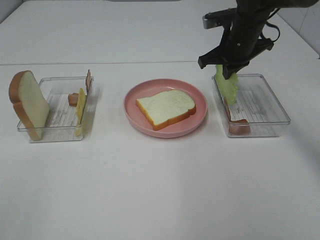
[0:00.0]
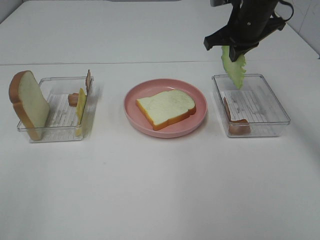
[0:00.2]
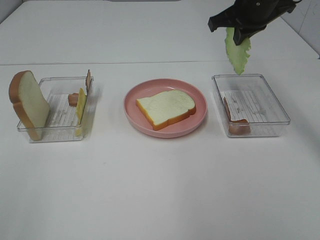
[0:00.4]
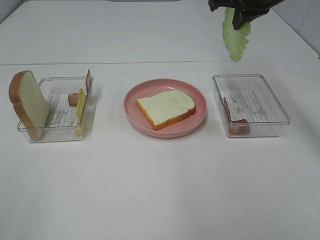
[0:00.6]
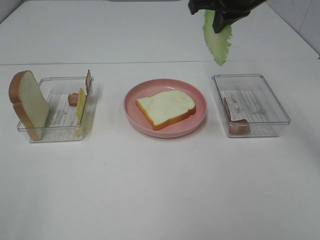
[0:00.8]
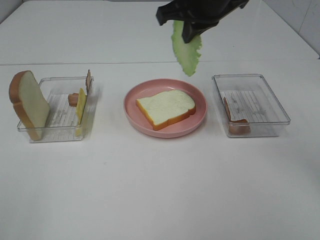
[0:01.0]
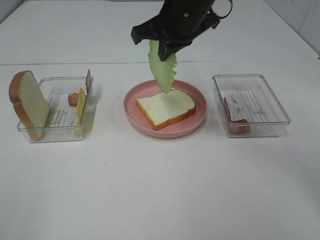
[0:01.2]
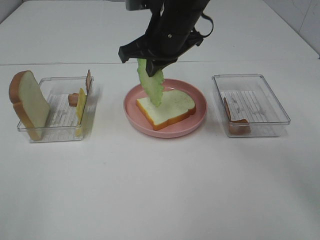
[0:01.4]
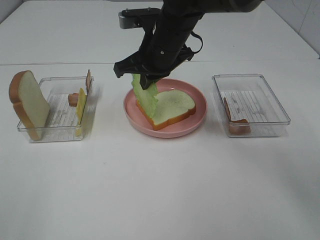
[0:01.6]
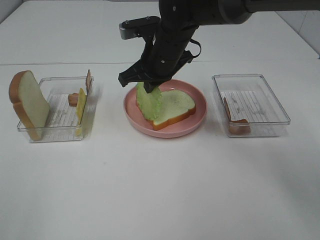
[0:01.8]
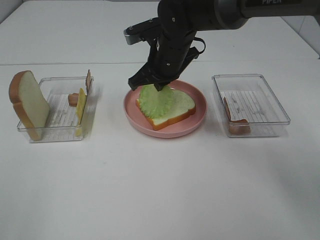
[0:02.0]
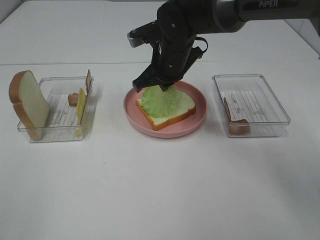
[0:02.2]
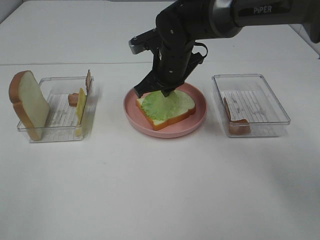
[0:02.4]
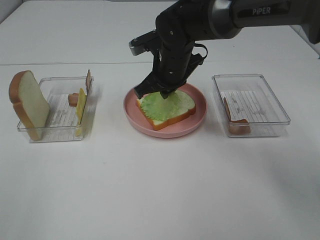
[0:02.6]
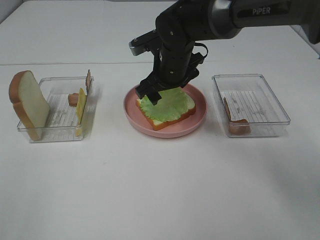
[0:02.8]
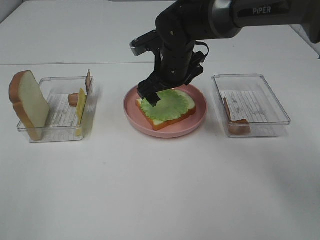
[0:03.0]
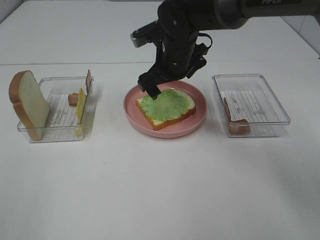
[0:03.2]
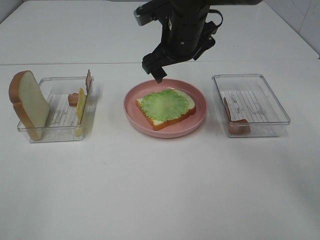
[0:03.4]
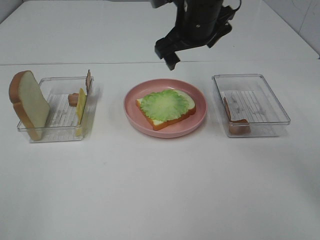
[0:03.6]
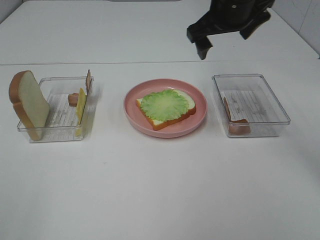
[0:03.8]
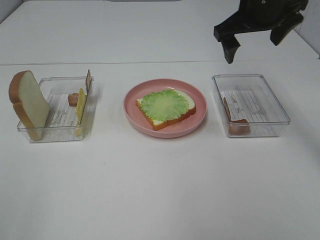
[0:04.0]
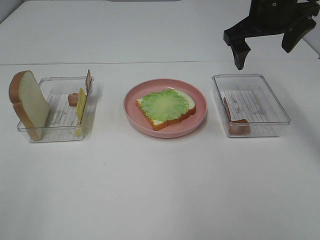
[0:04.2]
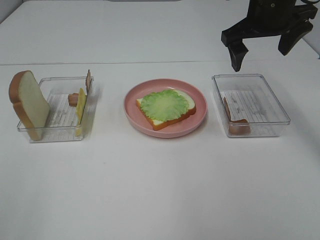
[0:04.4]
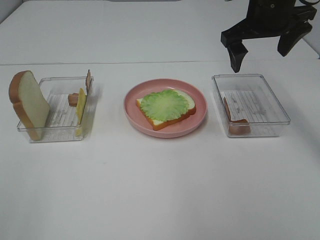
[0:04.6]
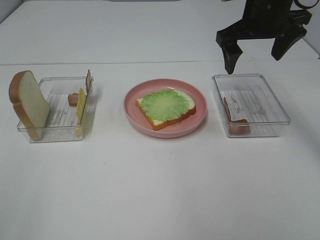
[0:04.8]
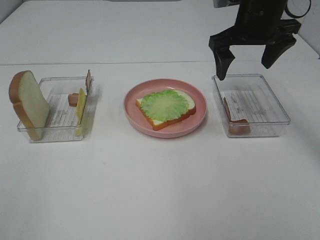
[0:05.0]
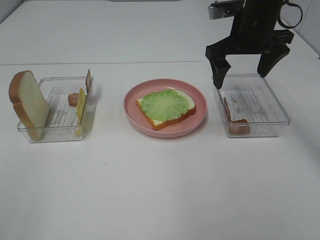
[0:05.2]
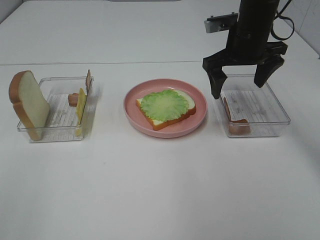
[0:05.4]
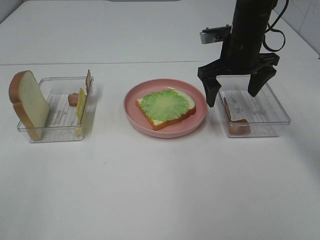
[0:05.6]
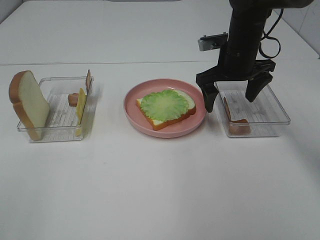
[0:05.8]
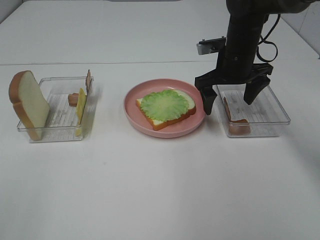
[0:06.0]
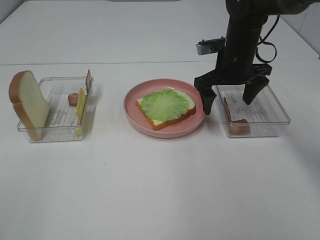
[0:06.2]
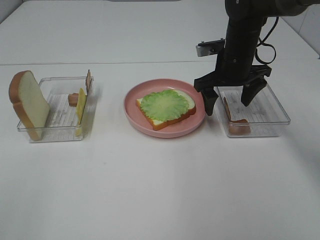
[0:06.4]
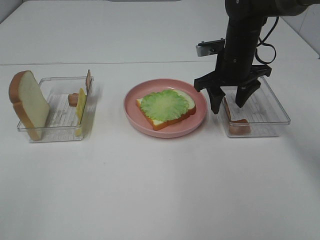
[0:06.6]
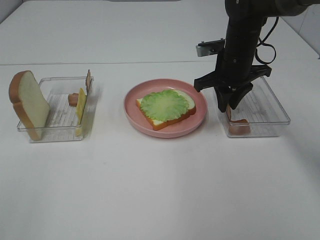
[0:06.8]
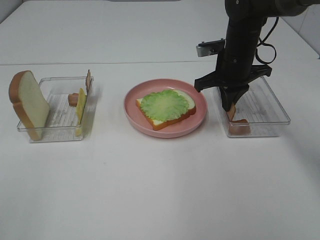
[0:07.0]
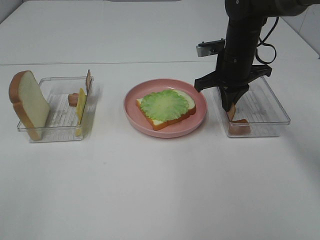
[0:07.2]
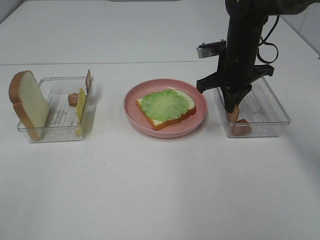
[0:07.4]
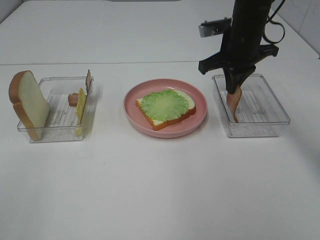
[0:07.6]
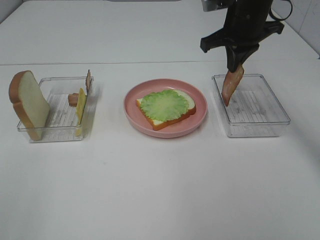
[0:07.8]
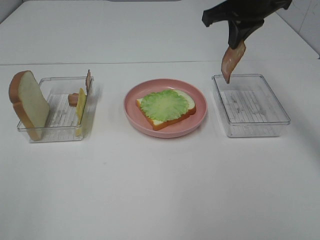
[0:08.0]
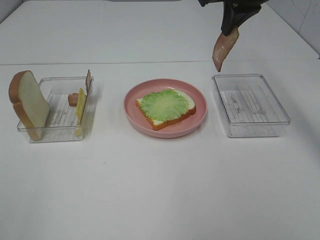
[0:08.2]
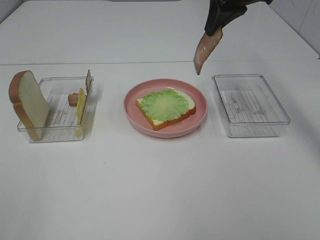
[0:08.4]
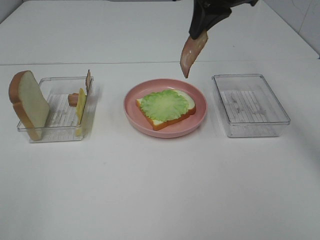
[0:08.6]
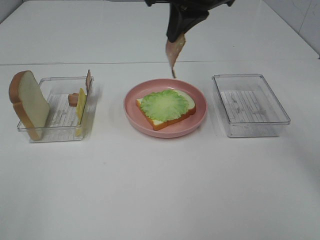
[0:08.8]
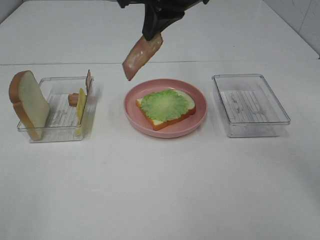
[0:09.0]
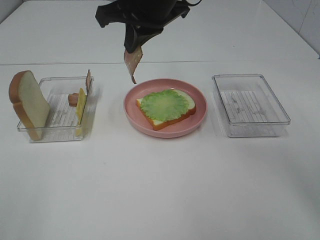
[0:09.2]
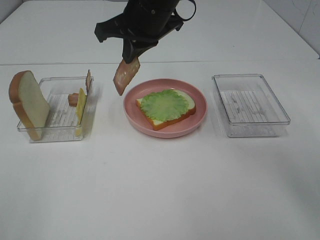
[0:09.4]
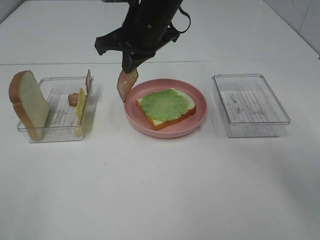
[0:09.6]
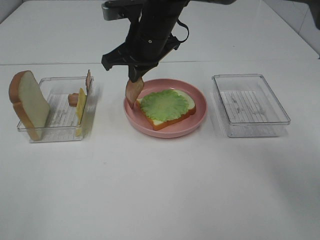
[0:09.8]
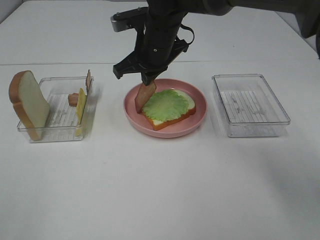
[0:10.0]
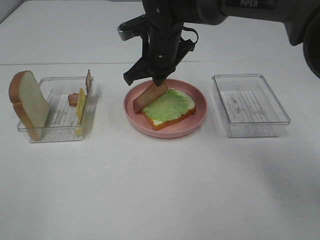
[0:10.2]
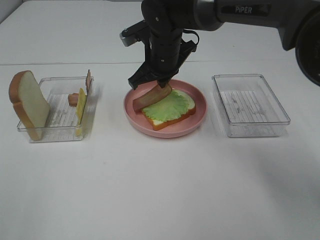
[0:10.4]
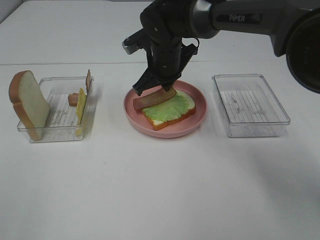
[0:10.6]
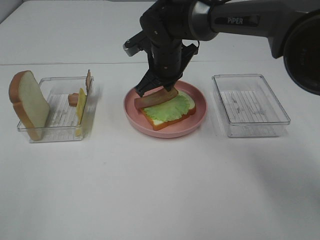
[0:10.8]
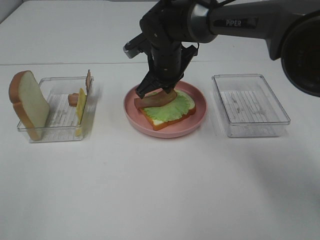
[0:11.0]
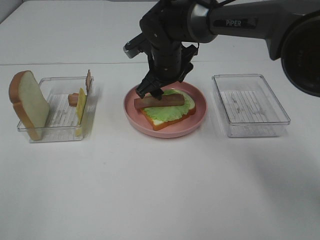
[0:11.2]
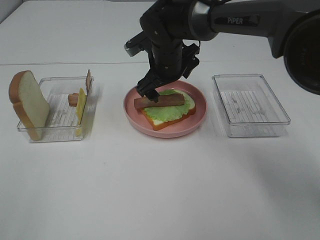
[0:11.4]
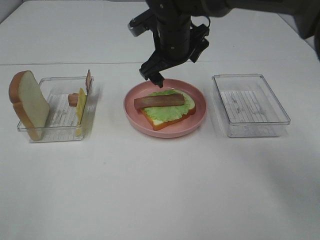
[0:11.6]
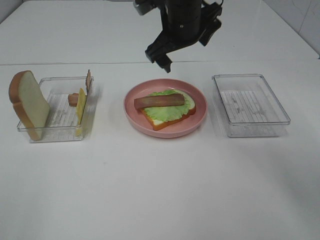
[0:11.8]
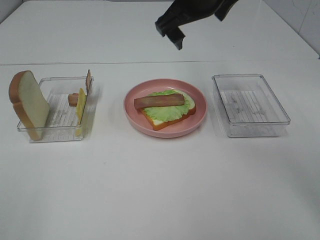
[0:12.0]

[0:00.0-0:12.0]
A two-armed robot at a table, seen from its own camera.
Task of the whole recording: Make sandwiches.
Step, 0:00.2 to 0:03.2: Right hand:place the lettuce slice on the bread slice.
Step, 0:03.4 to 0:07.2: Right hand:grab the bacon.
Step, 0:07.4 to 0:11.6: Right hand:place bacon on lettuce slice.
0:00.0 to 0:01.6: The right gripper goes approximately 15 cm to the left and backward.
0:01.6 to 0:03.0: The right gripper shifts by some 5 cm, and opens.
0:03.0 to 0:04.4: The right gripper goes approximately 20 cm to the right and upward.
0:04.4 to 0:06.0: The right gripper goes roughly 10 cm downward.
0:06.0 to 0:07.6: The right gripper closes its fingers.
0:07.6 to 0:09.0: The right gripper moves to the left, upward and backward, about 20 cm.
0:09.0 to 0:10.4: The right gripper heads downward, covering approximately 15 cm.
0:10.4 to 0:12.0: The right gripper shifts about 15 cm upward, and opens.

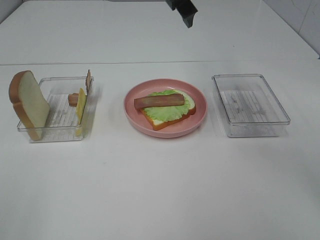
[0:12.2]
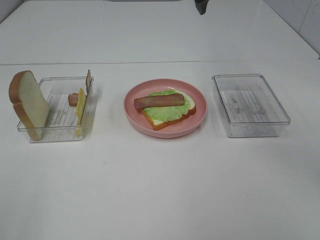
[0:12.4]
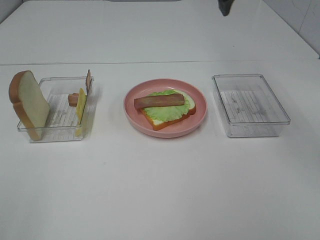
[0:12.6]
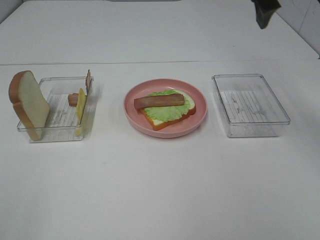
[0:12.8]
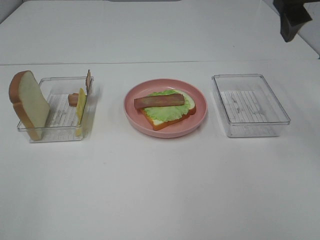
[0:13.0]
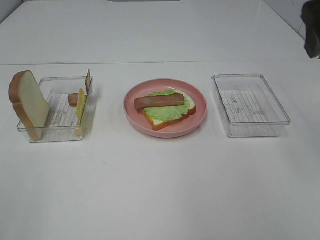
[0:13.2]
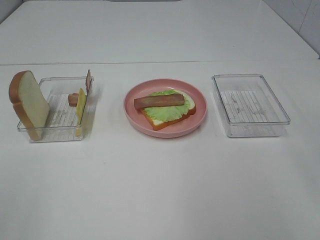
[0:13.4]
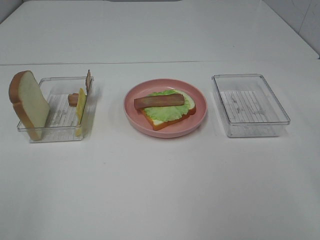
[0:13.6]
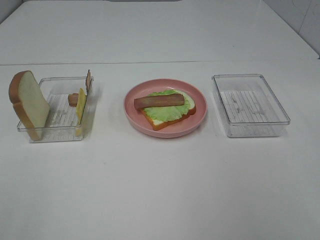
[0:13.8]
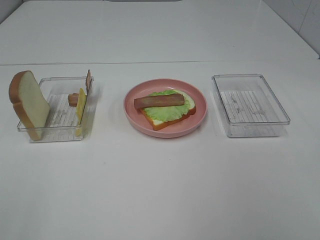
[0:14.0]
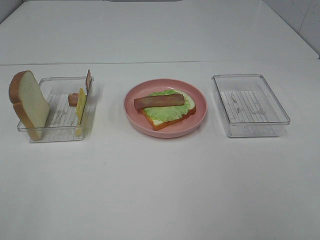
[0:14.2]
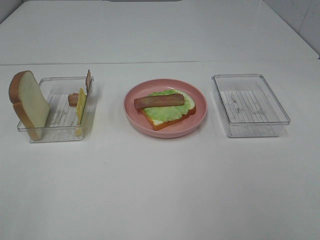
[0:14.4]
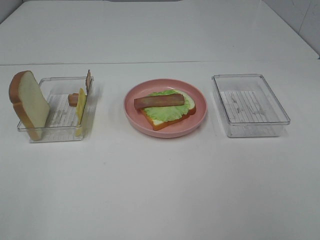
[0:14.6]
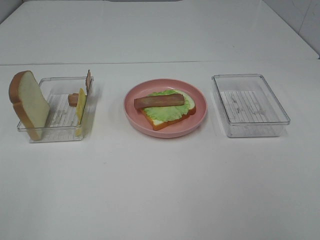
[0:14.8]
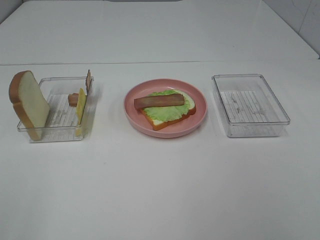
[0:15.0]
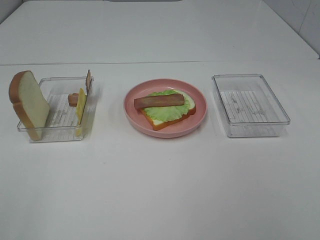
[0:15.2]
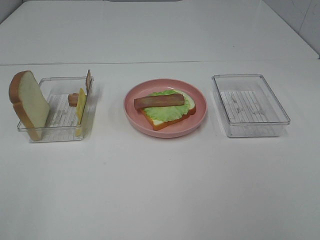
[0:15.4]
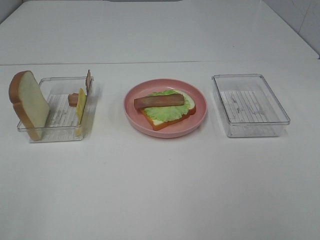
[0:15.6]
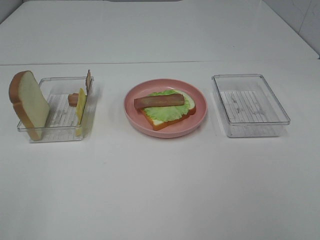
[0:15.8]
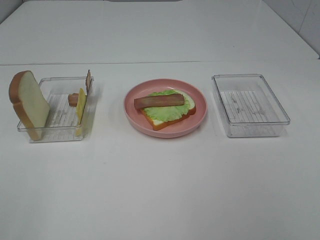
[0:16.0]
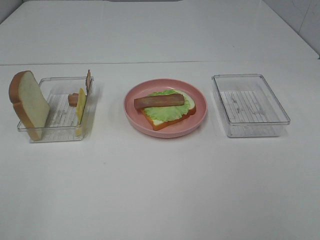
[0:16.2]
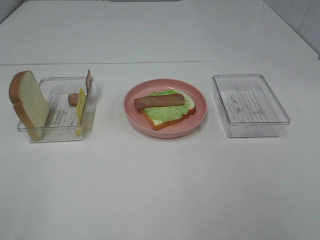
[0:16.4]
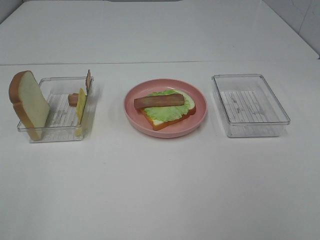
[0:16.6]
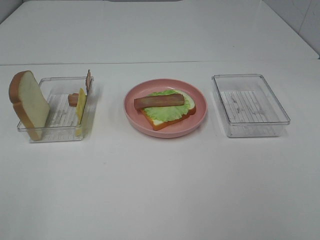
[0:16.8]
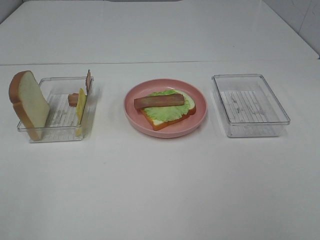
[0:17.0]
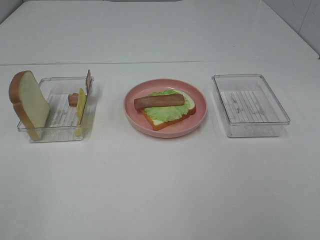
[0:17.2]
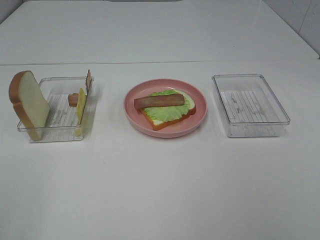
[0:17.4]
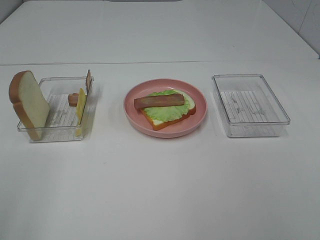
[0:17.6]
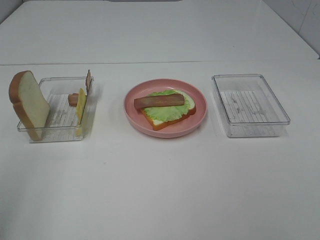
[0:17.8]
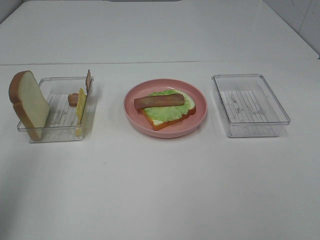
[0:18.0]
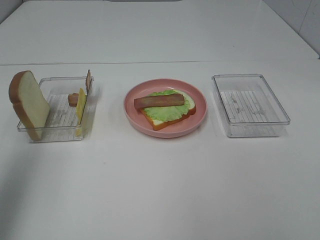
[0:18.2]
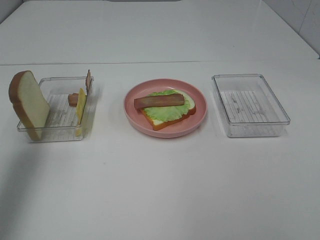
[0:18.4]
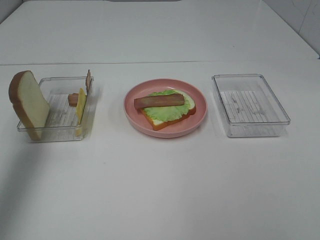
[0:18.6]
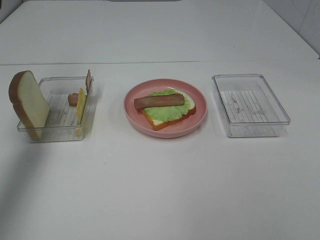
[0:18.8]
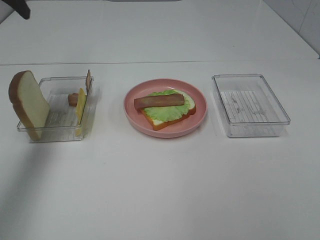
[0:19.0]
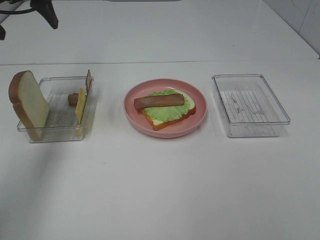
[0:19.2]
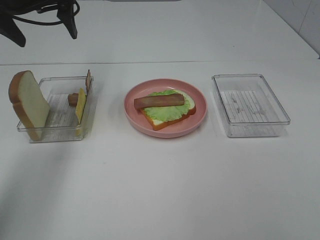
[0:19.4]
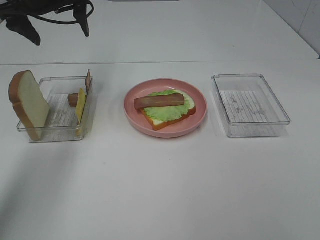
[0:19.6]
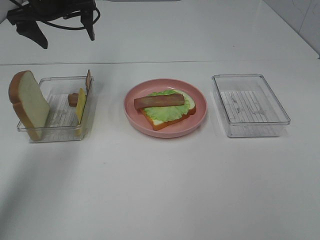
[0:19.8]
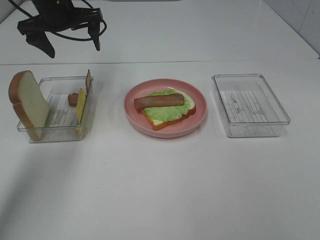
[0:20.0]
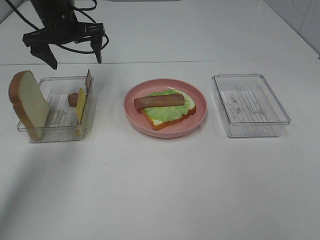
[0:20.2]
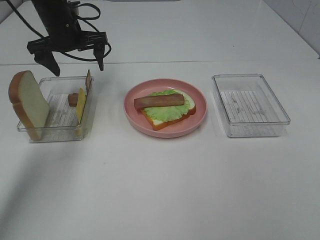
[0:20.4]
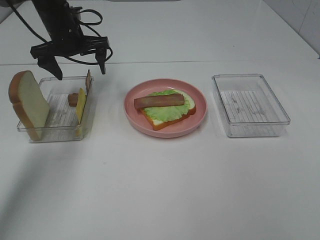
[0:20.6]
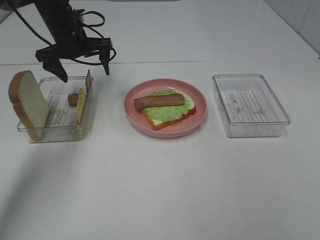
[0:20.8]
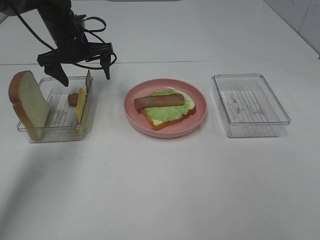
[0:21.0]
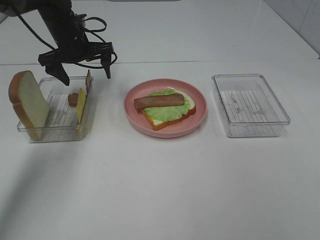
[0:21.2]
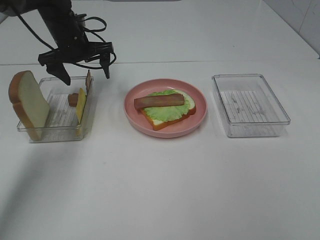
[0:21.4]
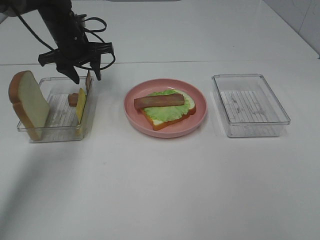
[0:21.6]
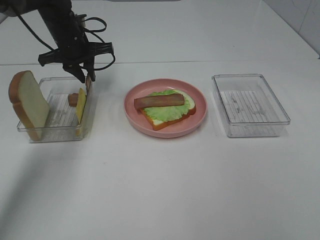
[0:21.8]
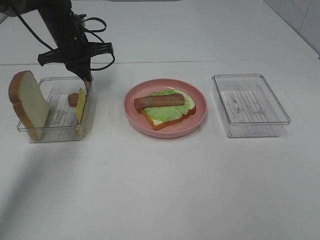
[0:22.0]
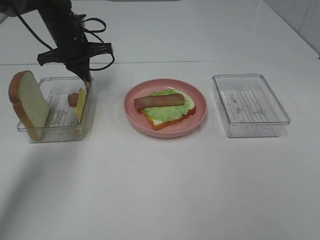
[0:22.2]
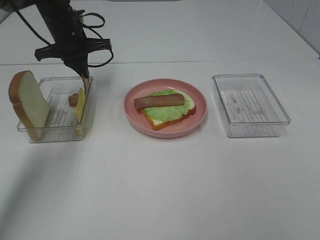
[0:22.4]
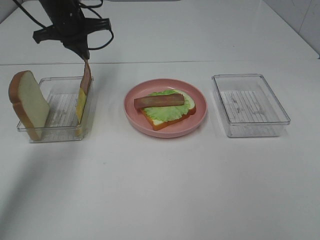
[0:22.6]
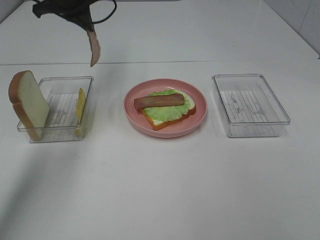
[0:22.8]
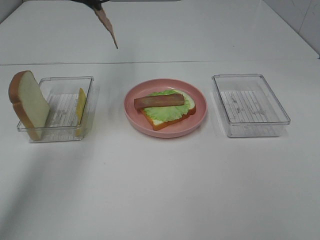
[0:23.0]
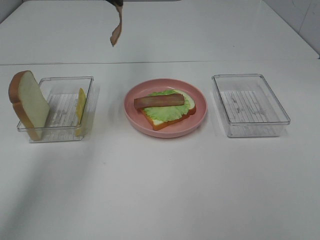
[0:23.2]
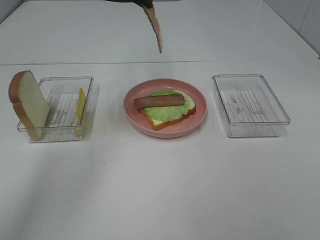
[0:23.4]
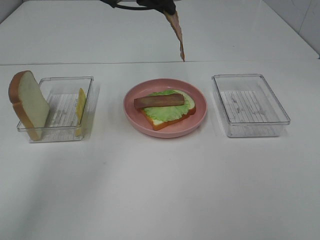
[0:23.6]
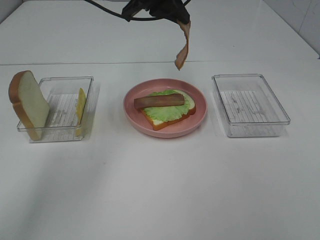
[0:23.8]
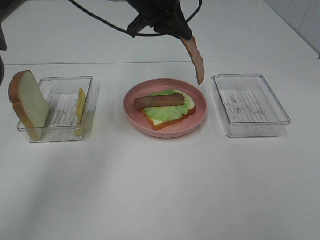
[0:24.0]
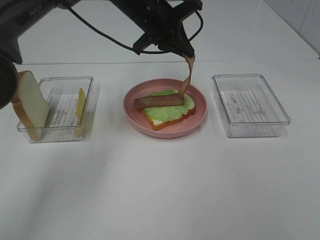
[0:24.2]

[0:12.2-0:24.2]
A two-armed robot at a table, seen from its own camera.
Task of the whole recording: Make sandwiches.
Step, 0:12.2 to 0:22.4: Left hand:grab the bacon.
0:12.2 to 0:13.8: The right gripper goes some 35 cm backward and to the right.
0:15.2 to 0:16.6: Neither gripper changes place.
0:16.6 to 0:18.2: The left gripper goes about 20 cm forward and upward.
0:18.2 to 0:19.8: The left gripper moves forward and downward, roughly 30 cm.
0:19.8 to 0:21.2: The left gripper moves downward, some 10 cm.
0:21.2 to 0:22.6: The left gripper moves upward, about 5 cm, and closes its fingers.
0:22.6 to 0:24.2: The left gripper travels to the right by approximately 15 cm.
